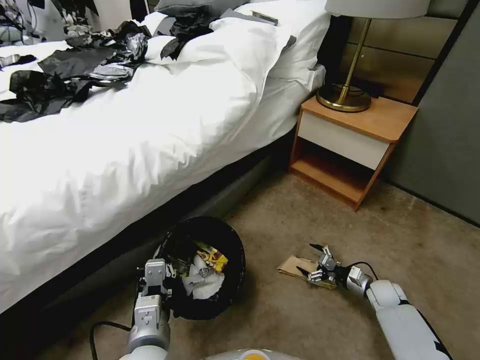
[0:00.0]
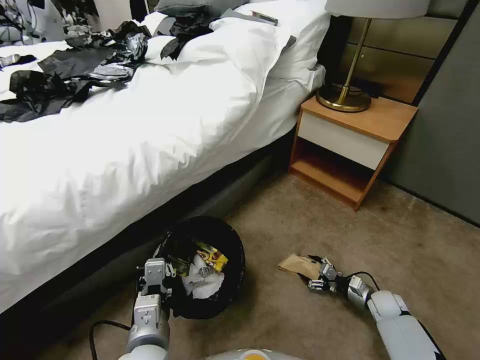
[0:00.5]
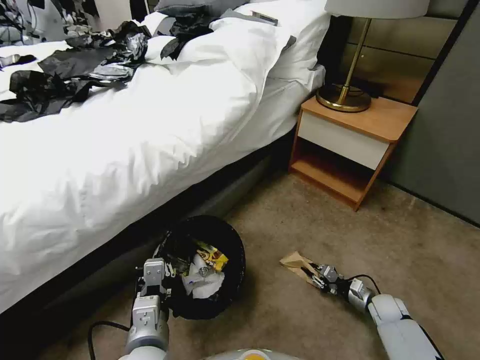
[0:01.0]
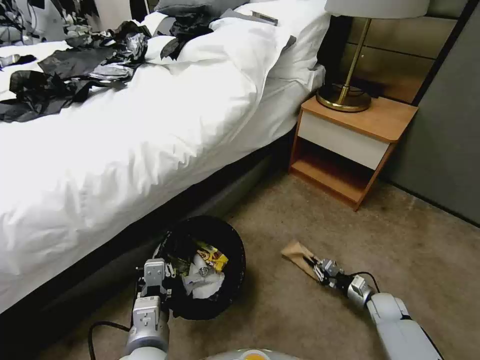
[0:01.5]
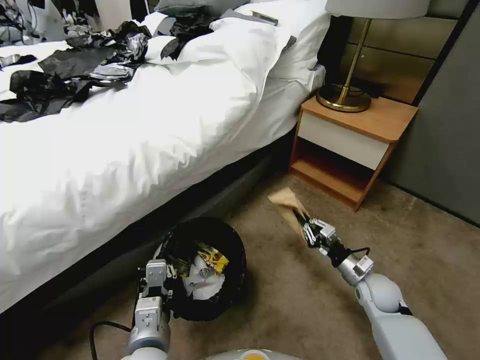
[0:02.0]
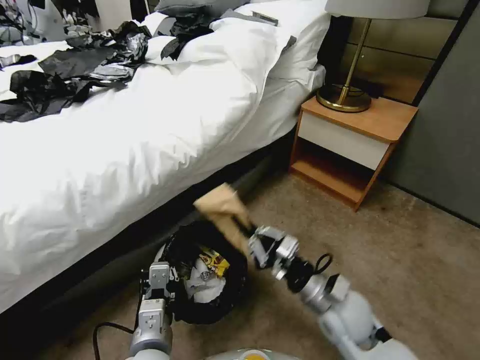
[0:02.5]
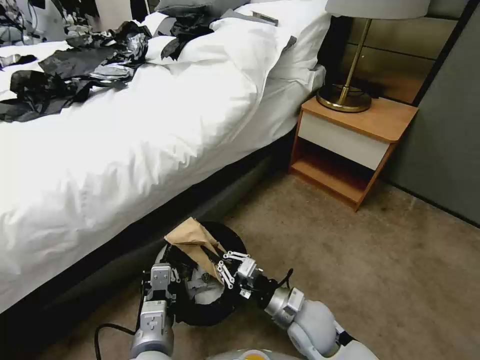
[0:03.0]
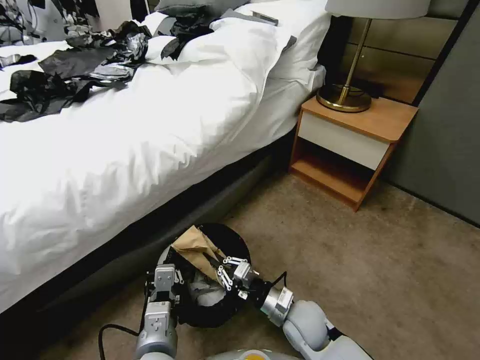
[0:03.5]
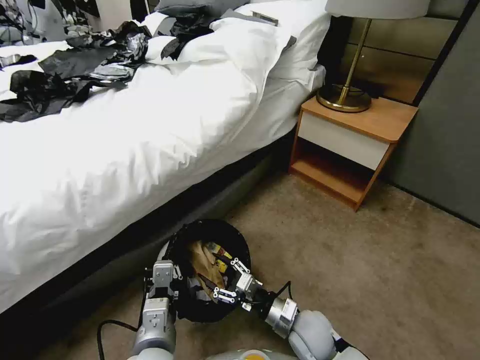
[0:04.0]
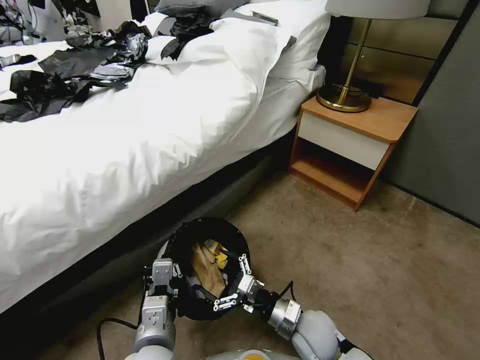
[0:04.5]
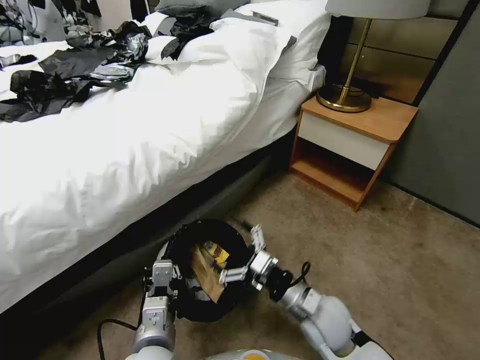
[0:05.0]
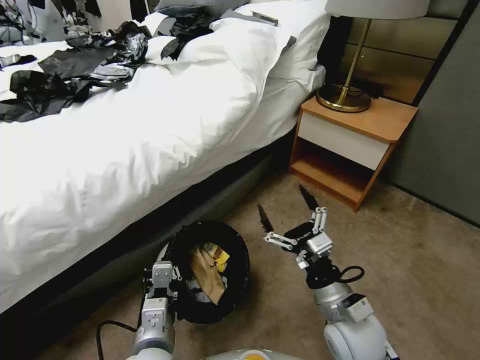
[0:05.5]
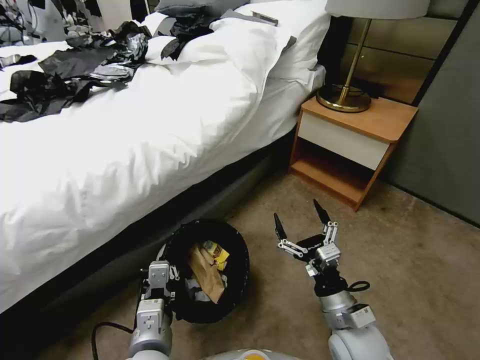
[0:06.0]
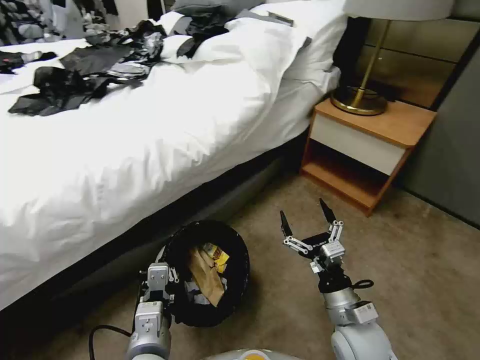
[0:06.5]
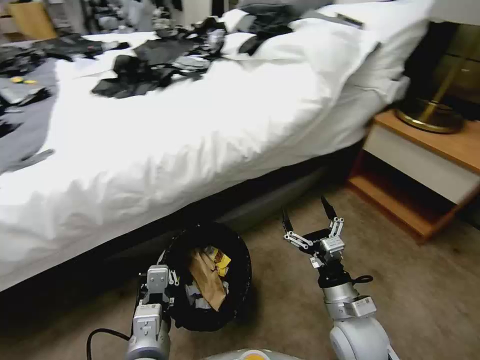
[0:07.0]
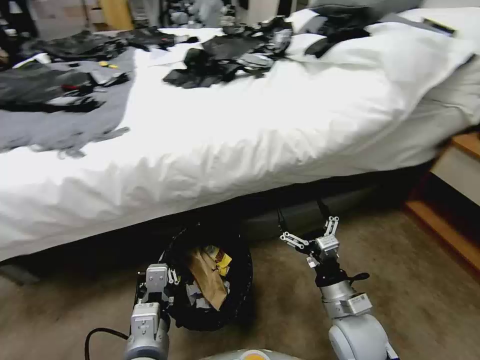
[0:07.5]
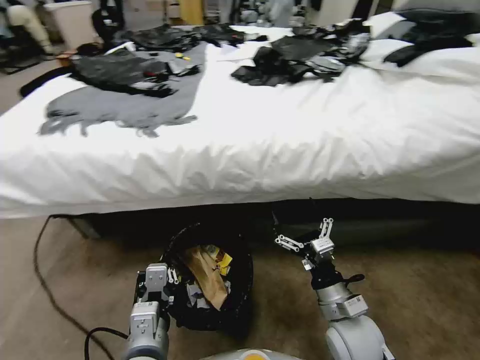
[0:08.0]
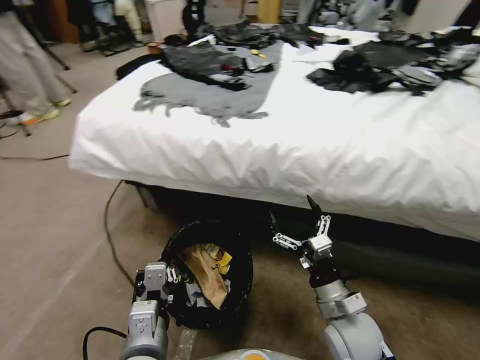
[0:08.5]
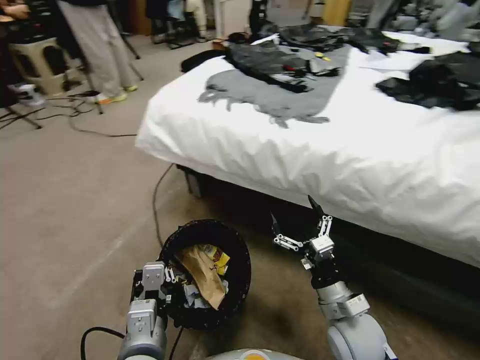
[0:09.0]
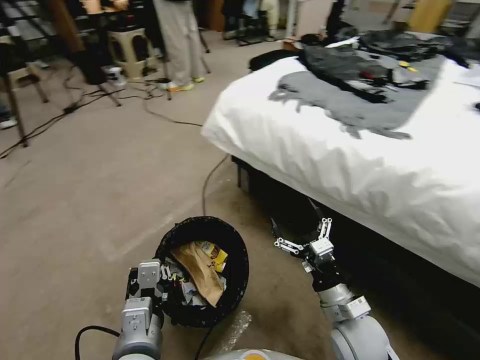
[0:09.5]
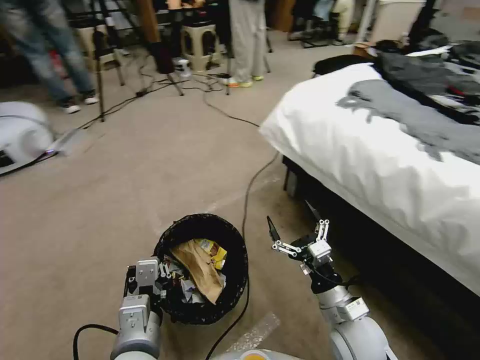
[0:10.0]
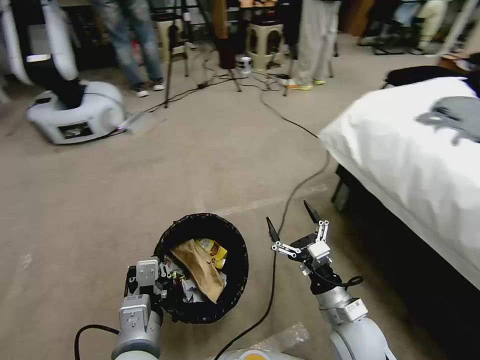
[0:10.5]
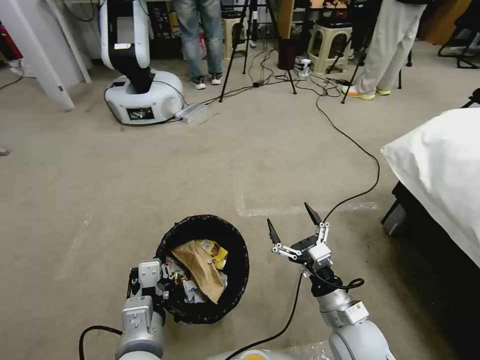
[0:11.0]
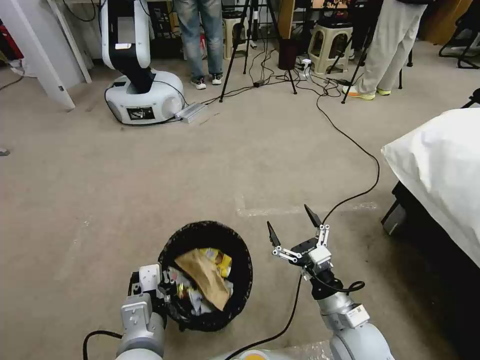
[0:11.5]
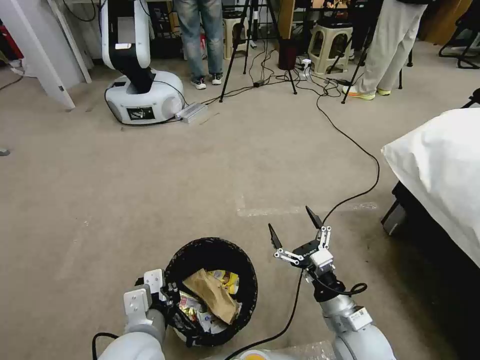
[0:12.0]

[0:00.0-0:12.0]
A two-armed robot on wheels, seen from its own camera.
Task of the whole recording: Pick up the trash bin, then pick up the garbage from the floor and place it into the trash bin.
0:00.0 to 0:02.0: The right gripper goes roughly 15 cm upward and to the left, and closes up.
0:02.0 to 0:04.0: The right gripper moves to the left and backward, roughly 20 cm, and opens its fingers.
0:04.0 to 0:06.0: The right gripper shifts approximately 10 cm upward and to the right, and opens its fingers.

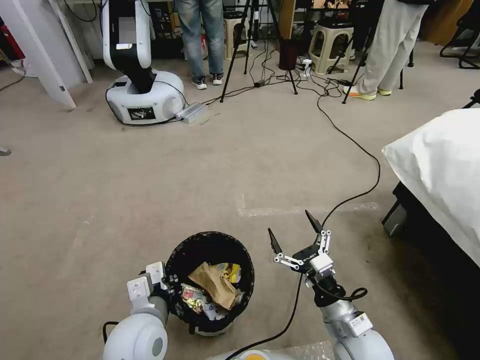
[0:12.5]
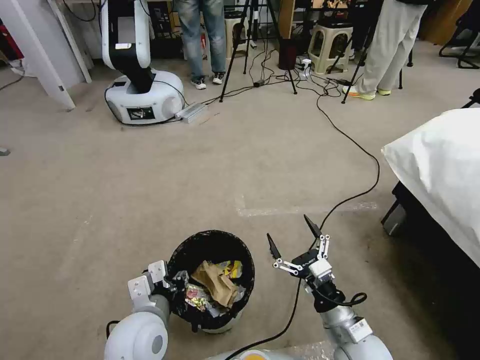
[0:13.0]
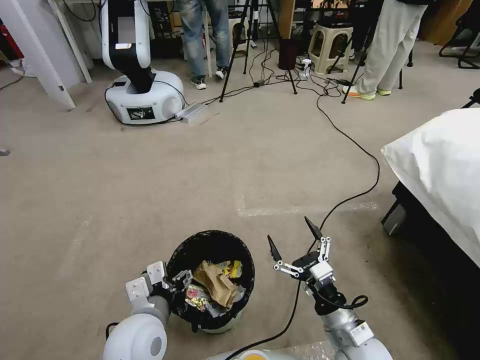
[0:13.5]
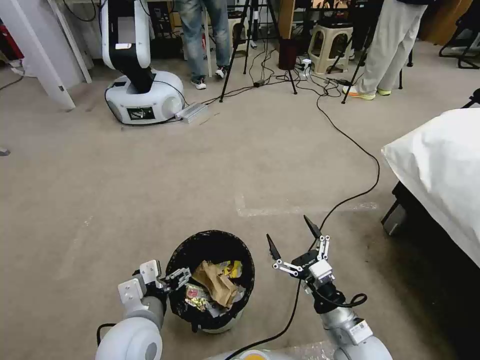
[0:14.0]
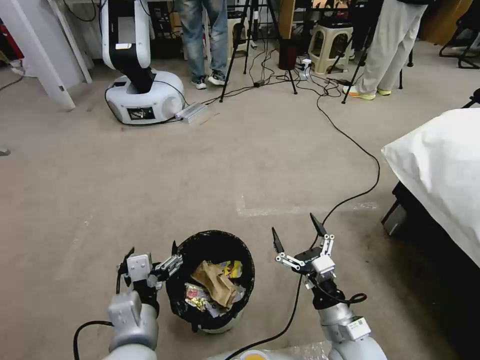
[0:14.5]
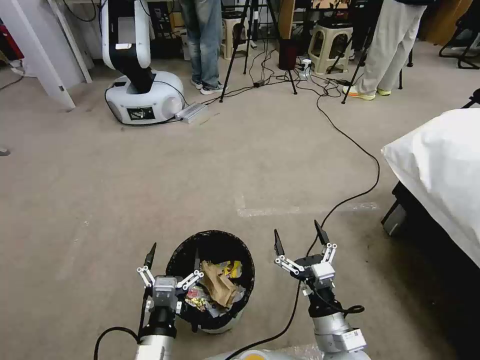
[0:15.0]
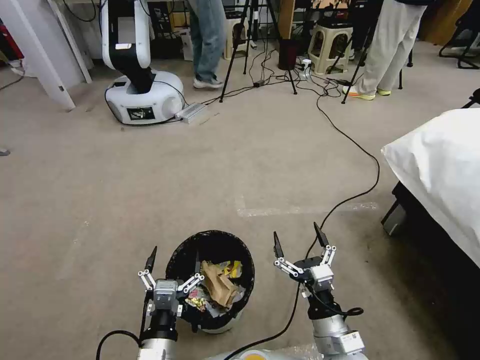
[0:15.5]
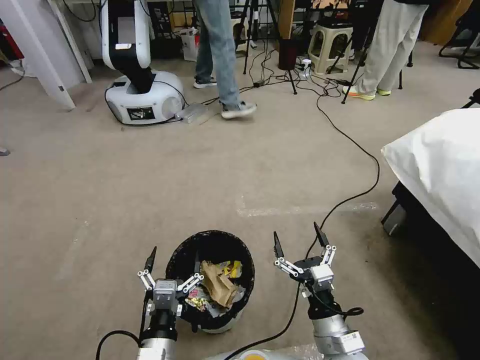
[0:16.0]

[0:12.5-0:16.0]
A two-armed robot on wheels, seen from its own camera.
Task of the whole recording: Pick up the trash bin, then pick up the garbage from the floor and place it into the trash bin.
0:12.5 to 0:14.5: The left gripper shifts by roughly 5 cm, and opens.
0:14.5 to 0:16.0: The left gripper travels downward by roughly 10 cm.
